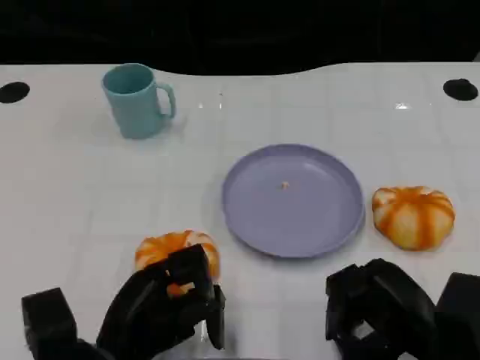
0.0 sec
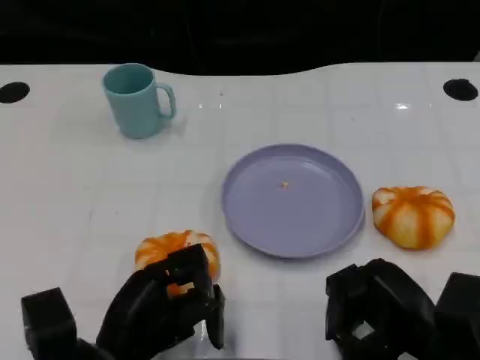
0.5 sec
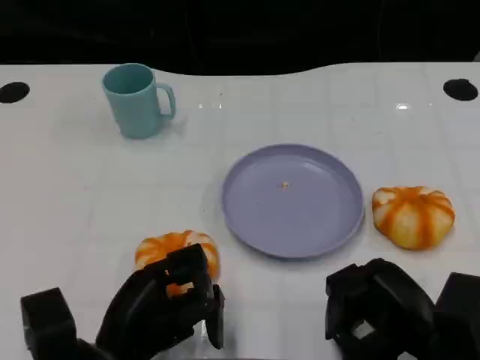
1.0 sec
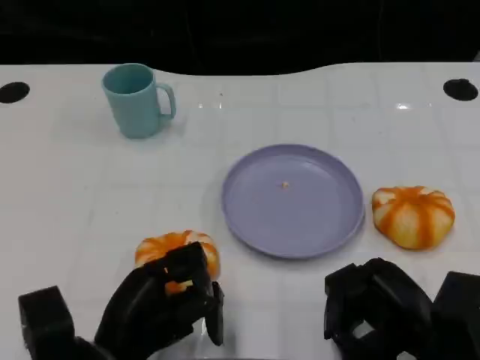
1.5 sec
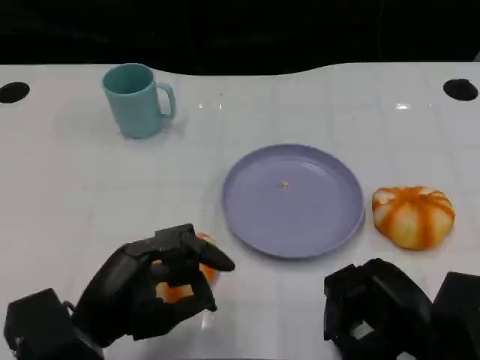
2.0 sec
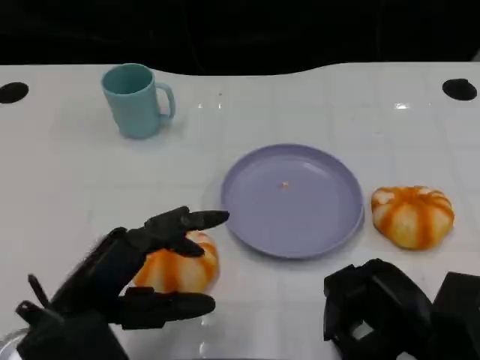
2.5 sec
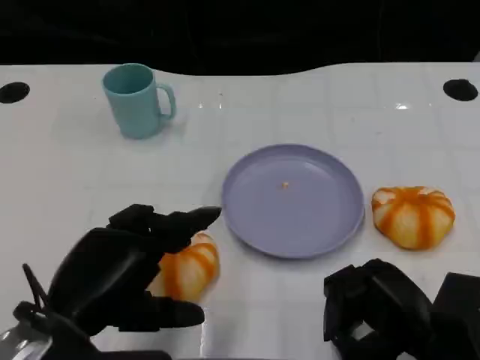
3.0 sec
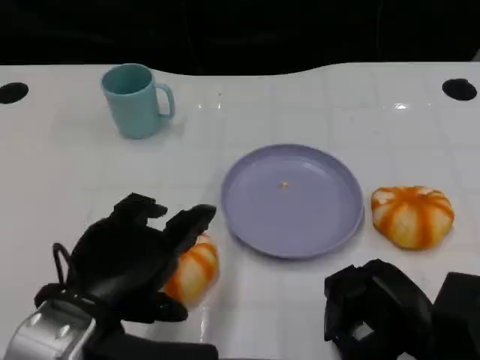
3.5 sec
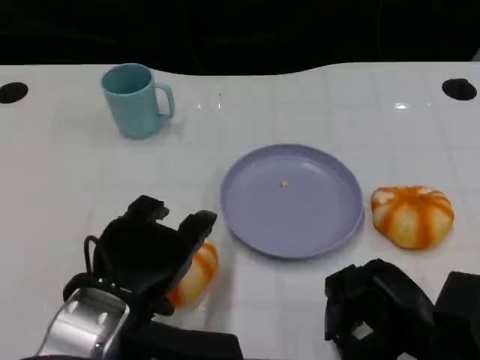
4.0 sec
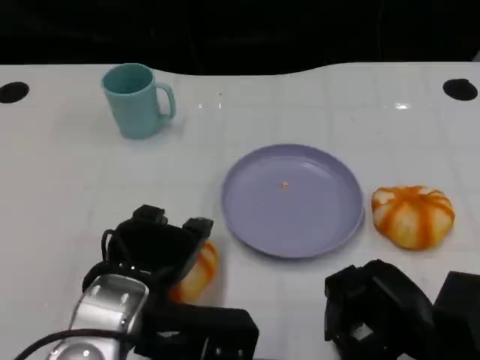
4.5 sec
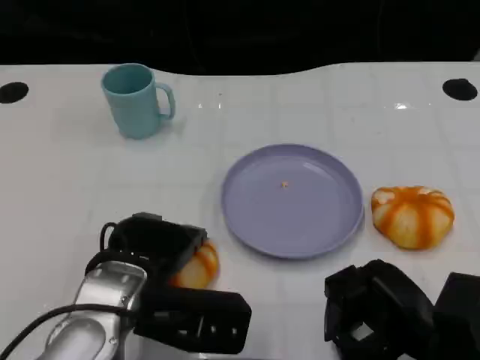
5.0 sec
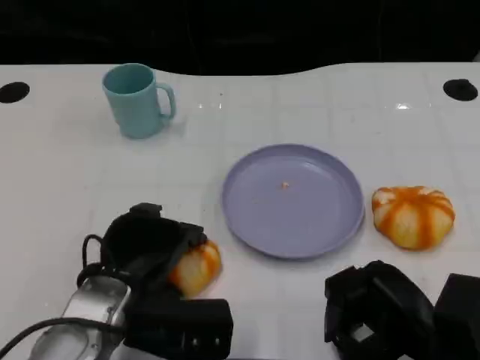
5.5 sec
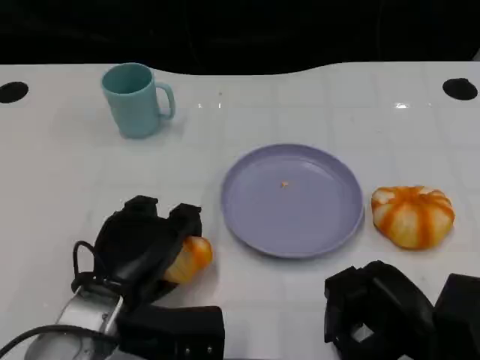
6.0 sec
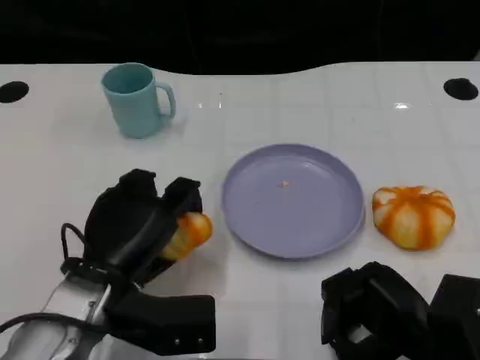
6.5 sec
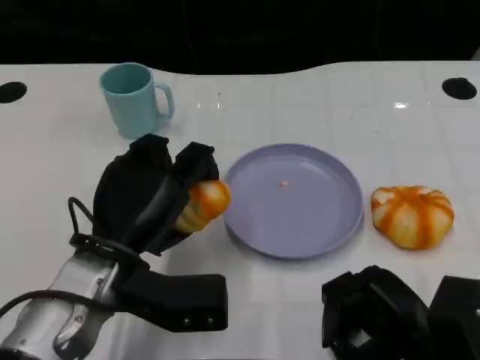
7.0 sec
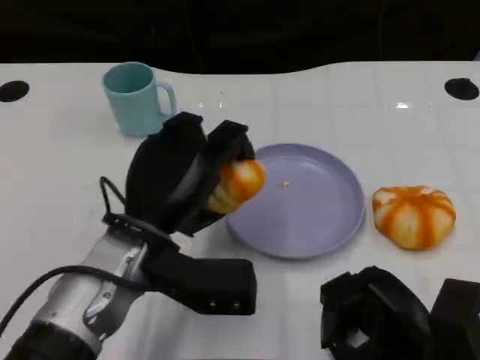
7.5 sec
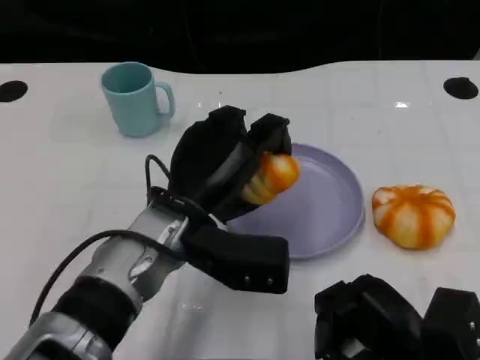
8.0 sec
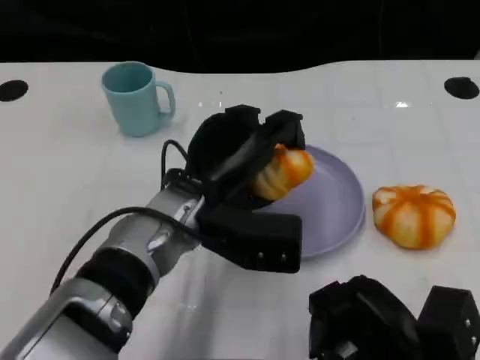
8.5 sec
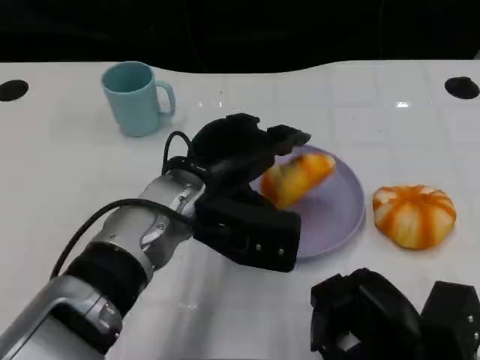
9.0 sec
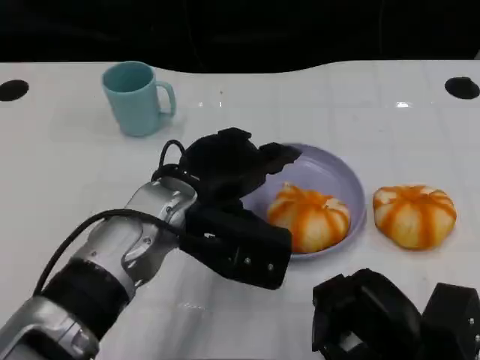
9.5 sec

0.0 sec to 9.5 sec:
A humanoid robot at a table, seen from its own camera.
Task of the whole recording: Grasp the bread from the table and place it into the plate.
2.0 sec to 4.0 sec: The left hand ends up approximately 5 cm from where it was.
4.0 sec to 5.5 sec: The left hand moves downward, roughly 5 cm.
5.5 sec to 7.5 sec: The left hand shifts by approximately 5 cm.

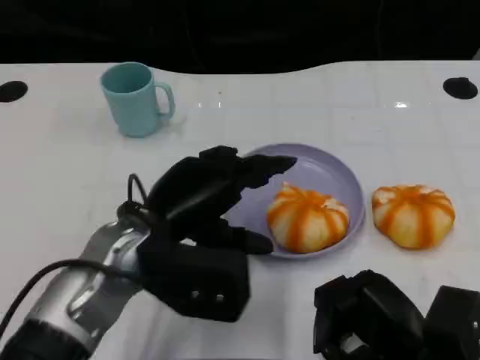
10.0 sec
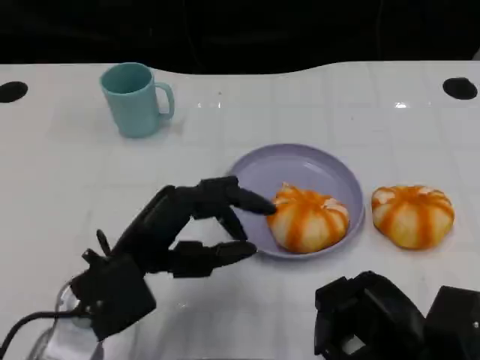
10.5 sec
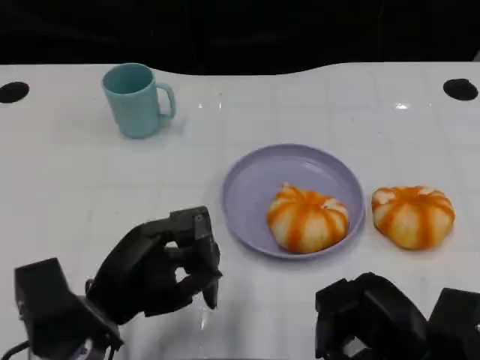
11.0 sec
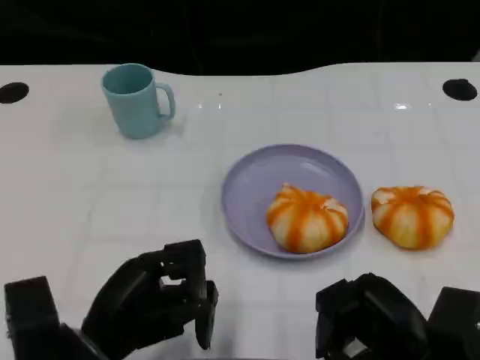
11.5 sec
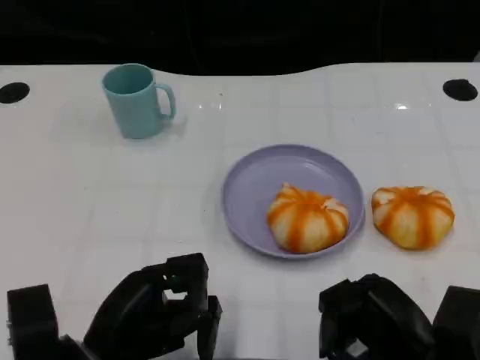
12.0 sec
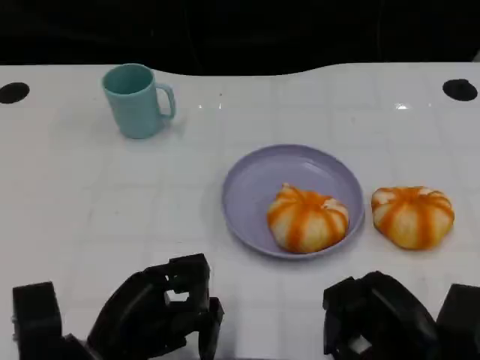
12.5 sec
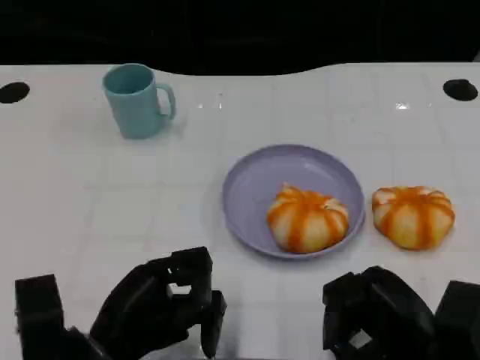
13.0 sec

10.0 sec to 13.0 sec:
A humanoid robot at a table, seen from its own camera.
Task of the whole recording: Grasp the bread from the table and place it into the plate.
10.0 sec to 11.5 sec: The left hand shifts roughly 10 cm backward, downward and to the left.
11.5 sec to 13.0 sec: The hands move only a little.

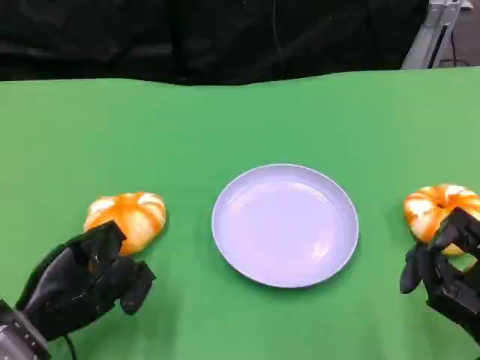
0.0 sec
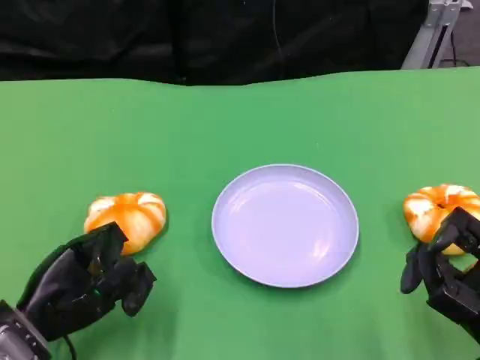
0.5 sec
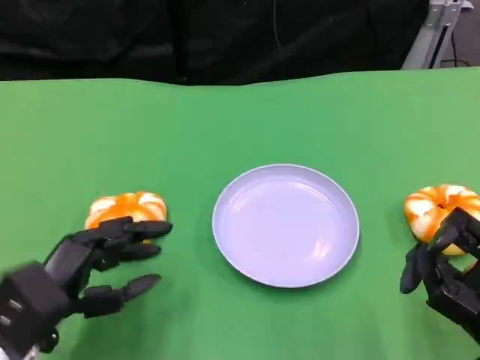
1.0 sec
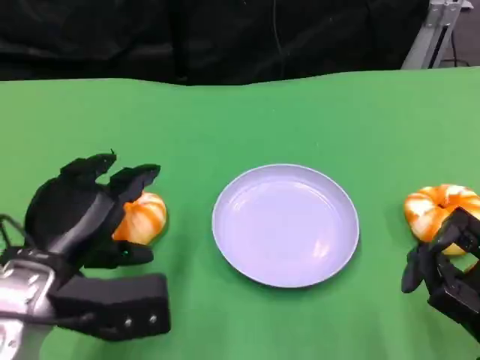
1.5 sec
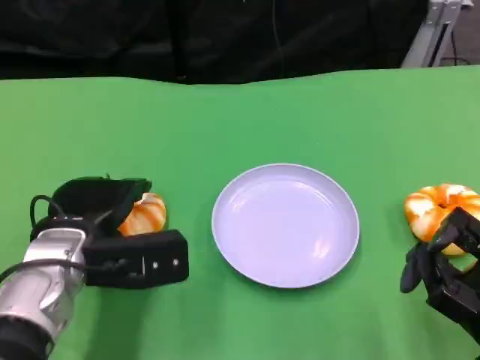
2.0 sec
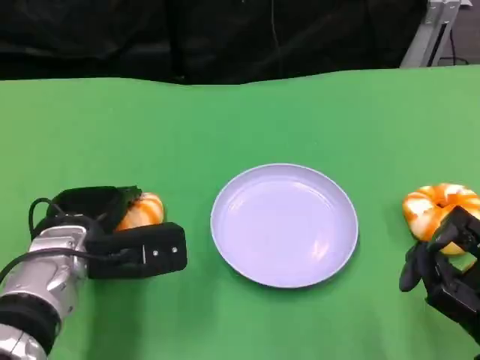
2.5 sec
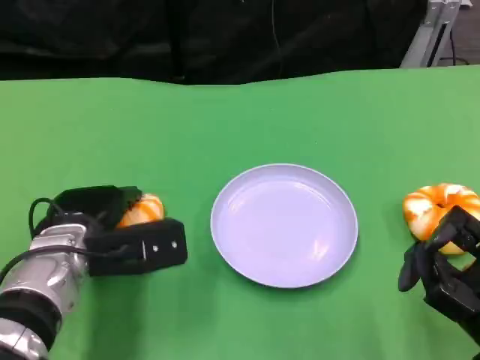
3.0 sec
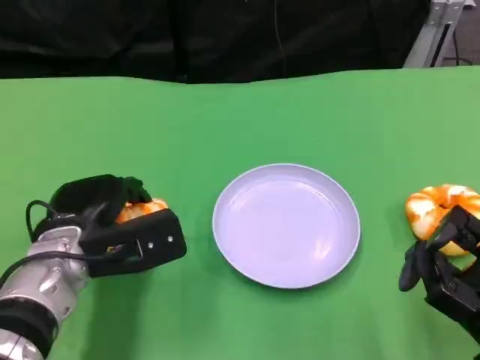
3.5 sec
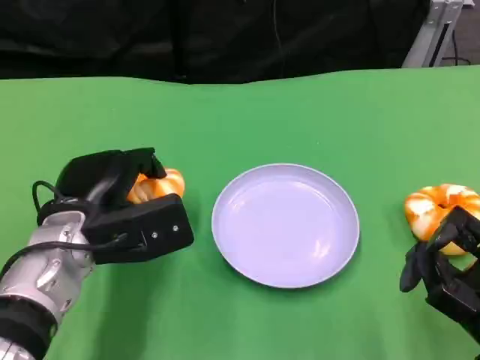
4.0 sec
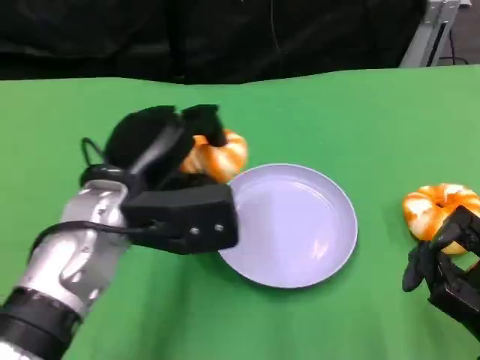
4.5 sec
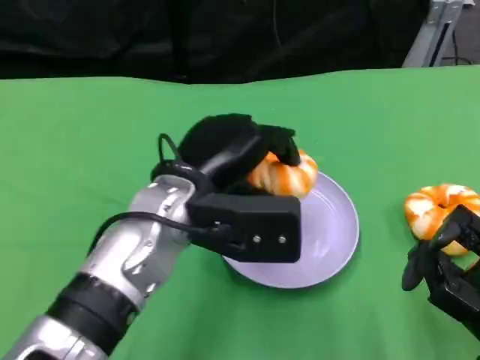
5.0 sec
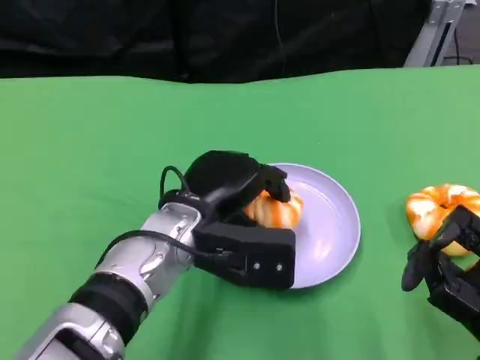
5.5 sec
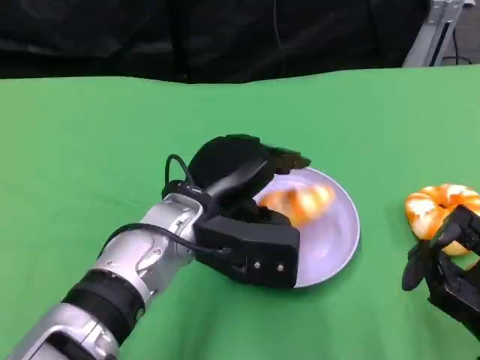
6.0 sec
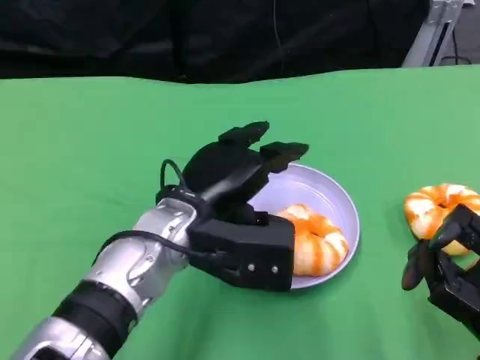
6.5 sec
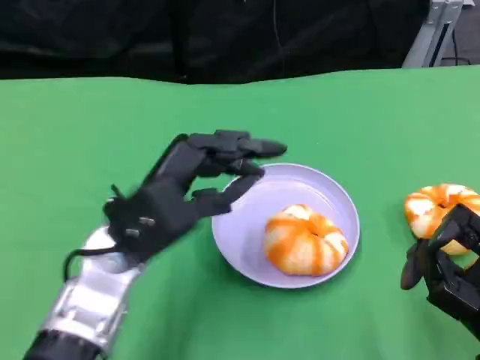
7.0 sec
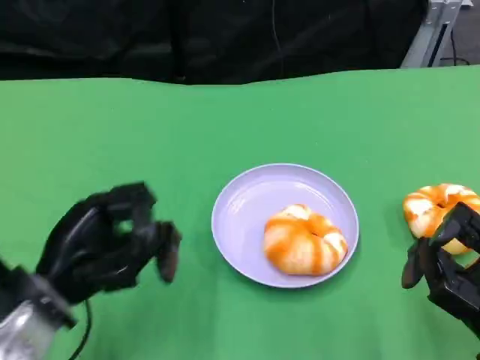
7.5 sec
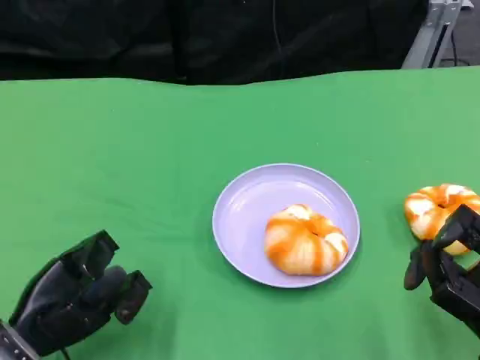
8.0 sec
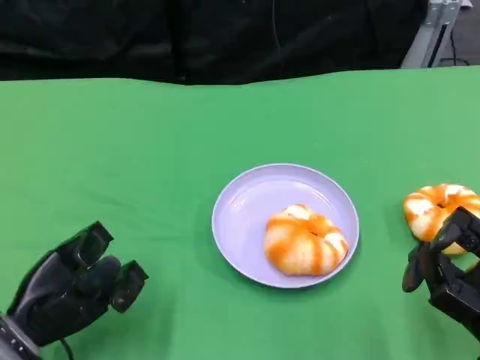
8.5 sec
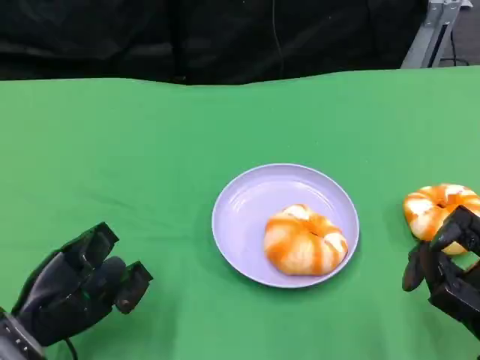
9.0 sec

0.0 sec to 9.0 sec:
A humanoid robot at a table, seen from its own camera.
Task of the whole recording: Grasp the bread from the table and place it into the plate.
0.0 sec to 2.0 sec: The left hand travels to the right, forward and upward by roughly 10 cm.
2.0 sec to 4.5 sec: The left hand travels upward and to the right by roughly 10 cm.
7.0 sec to 9.0 sec: The left hand heads to the left and downward, covering about 15 cm.

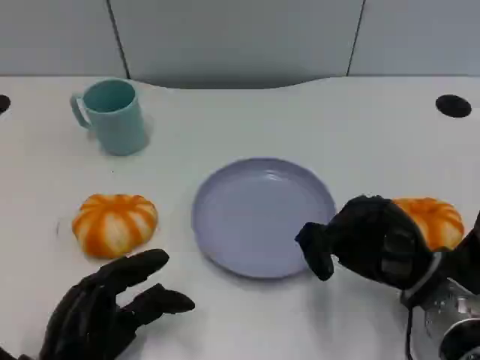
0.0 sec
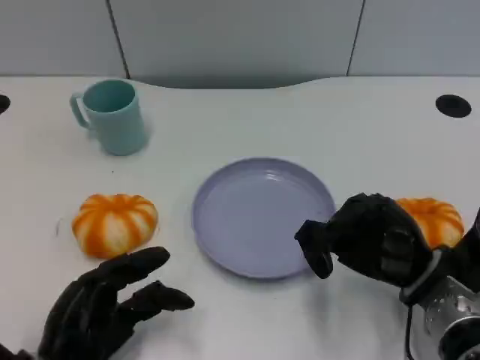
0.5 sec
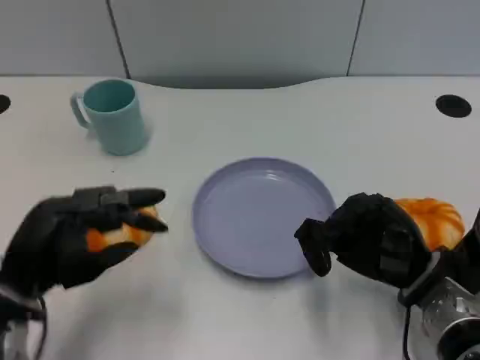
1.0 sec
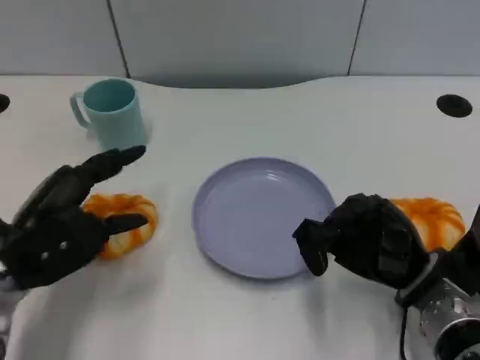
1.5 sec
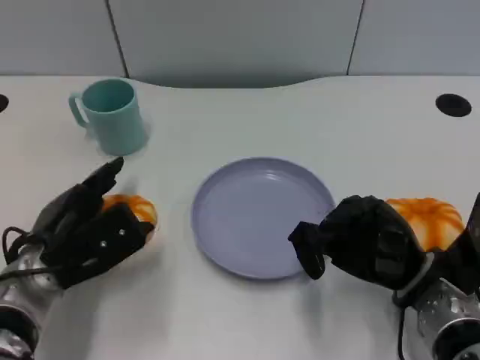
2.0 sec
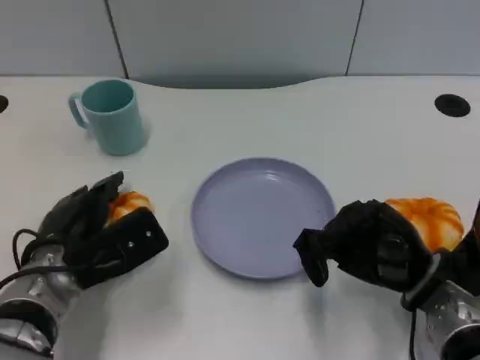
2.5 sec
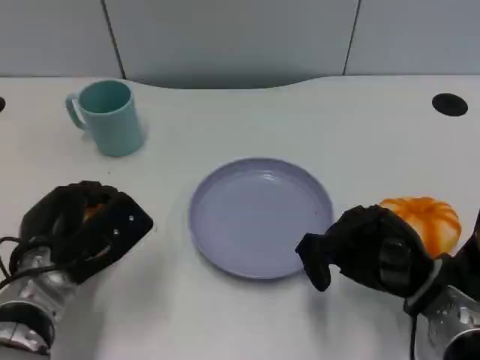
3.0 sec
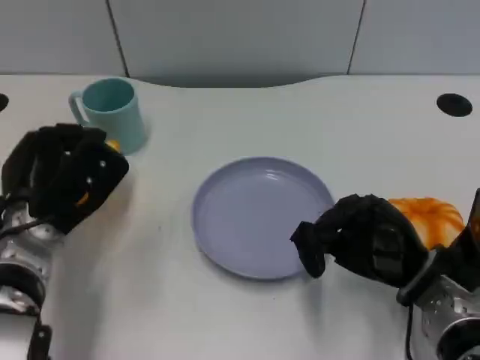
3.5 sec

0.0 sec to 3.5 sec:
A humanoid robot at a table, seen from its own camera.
Task of the whole recording: Grasp the bread from the table and place it into the plate.
0.0 sec to 2.0 sec: The left hand moves forward and upward, roughly 10 cm.
2.0 sec to 3.5 sec: The left hand ends up approximately 5 cm from where it was.
